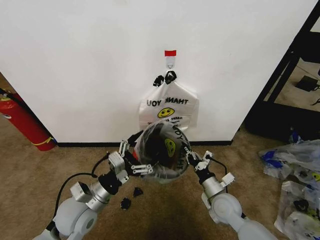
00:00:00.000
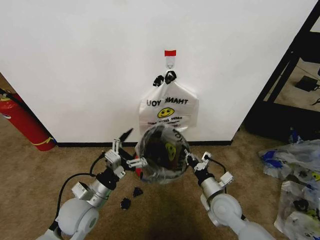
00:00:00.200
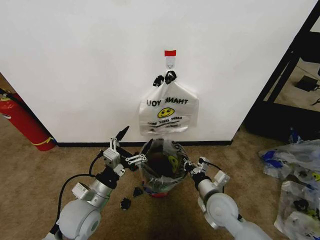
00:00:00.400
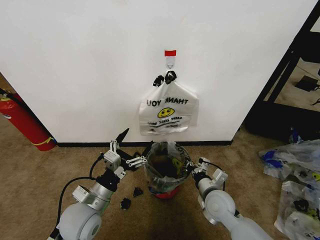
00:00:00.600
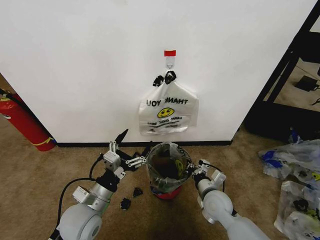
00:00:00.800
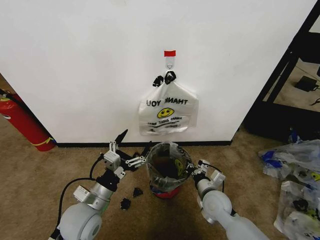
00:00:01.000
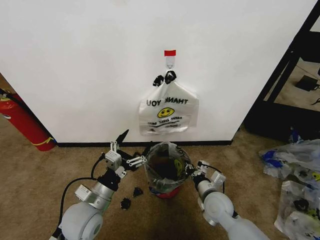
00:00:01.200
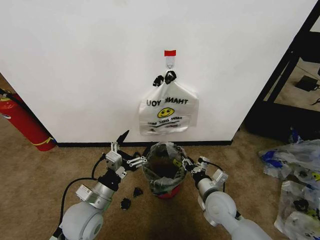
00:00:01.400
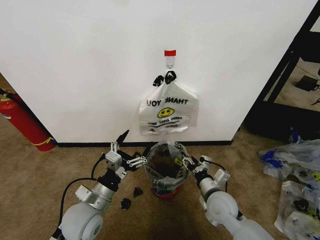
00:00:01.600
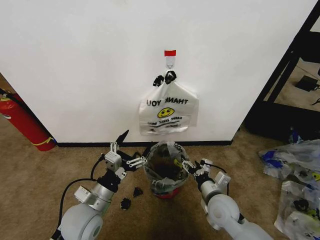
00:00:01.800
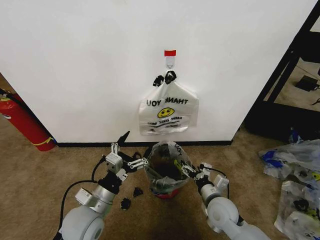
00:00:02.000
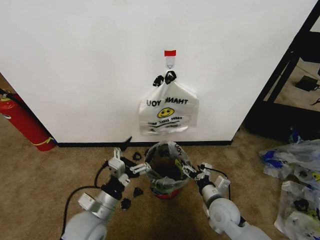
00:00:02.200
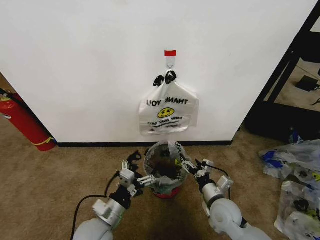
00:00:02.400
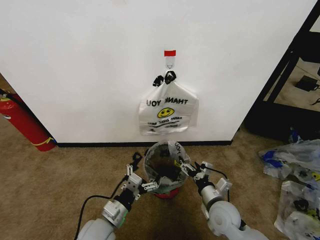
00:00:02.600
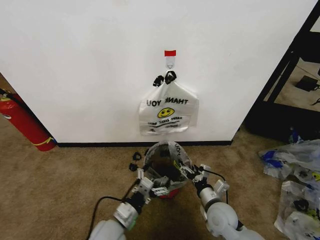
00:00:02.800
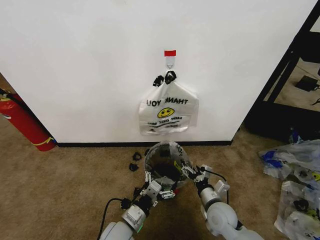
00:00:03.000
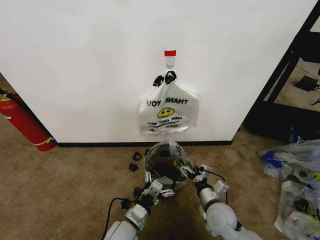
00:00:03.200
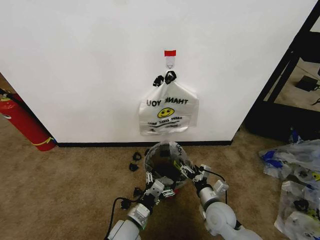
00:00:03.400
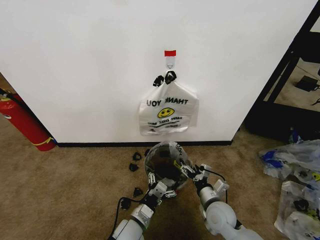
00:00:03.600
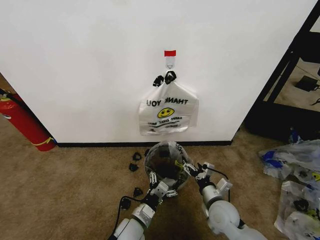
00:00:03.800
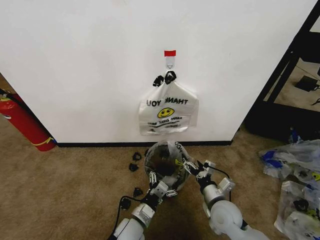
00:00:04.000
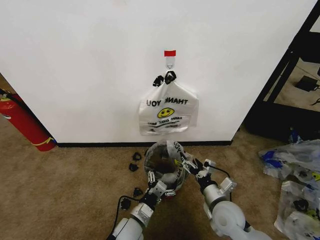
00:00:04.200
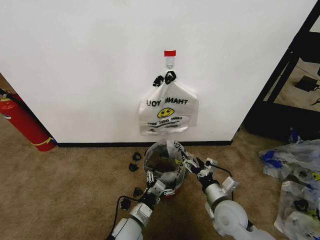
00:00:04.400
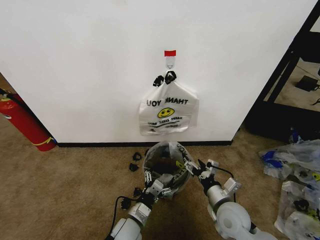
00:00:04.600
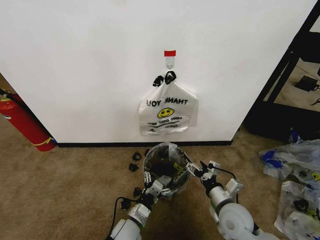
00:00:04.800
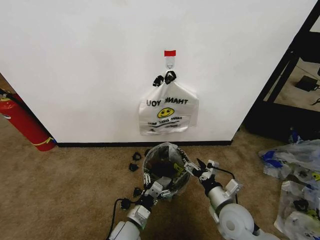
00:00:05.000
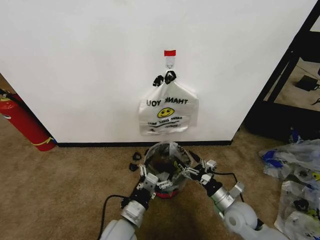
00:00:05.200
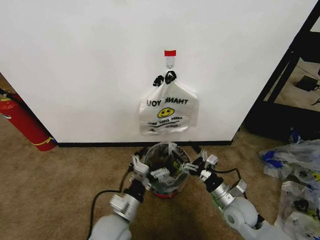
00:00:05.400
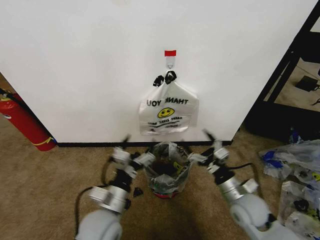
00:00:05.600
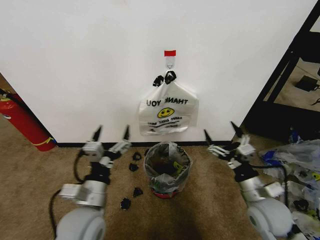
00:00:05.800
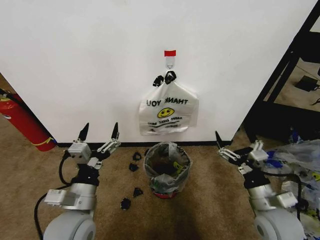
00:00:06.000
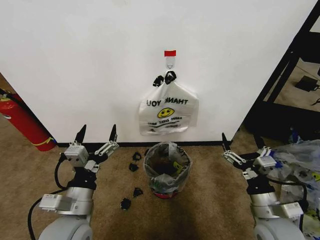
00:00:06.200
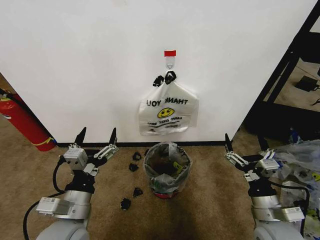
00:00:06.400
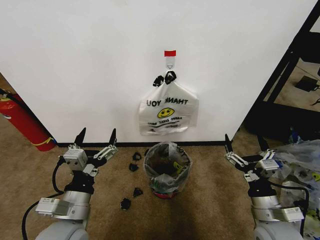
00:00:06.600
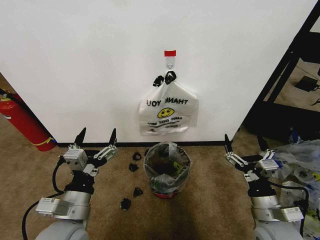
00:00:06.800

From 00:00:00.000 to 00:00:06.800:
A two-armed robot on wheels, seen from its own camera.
Task of the whole recording: Pick up the garbage bag from the wall and place it over the trash bin.
From 00:00:00.000 to 00:00:01.400: The right gripper opens.
From 00:00:01.400 to 00:00:02.800: The right gripper opens its fingers. Meanwhile the left gripper heads downward and to the right, covering approximately 10 cm.
From 00:00:02.800 to 00:00:04.000: The left gripper shifts approximately 5 cm downward.
From 00:00:04.000 to 00:00:05.400: The left gripper is displaced upward by some 10 cm.
From 00:00:05.400 to 00:00:06.800: The left gripper heads upward and to the left, covering about 10 cm. The right gripper travels backward and upward by about 10 cm.
